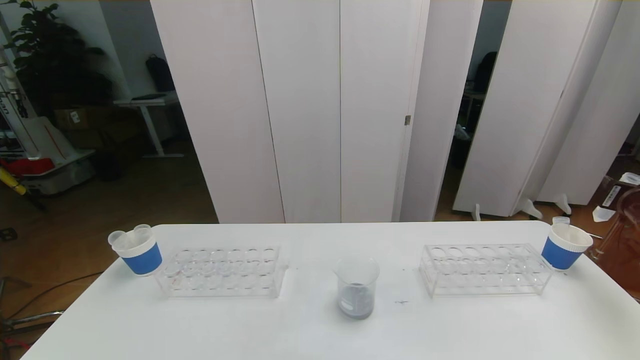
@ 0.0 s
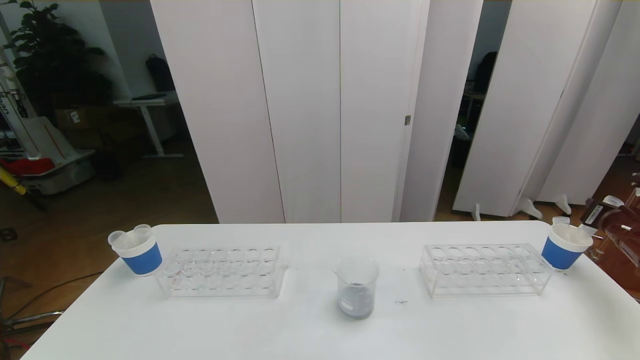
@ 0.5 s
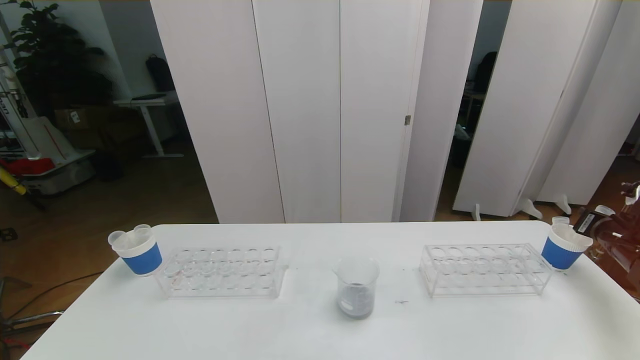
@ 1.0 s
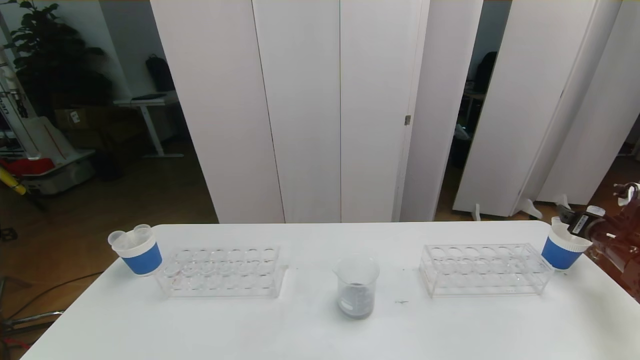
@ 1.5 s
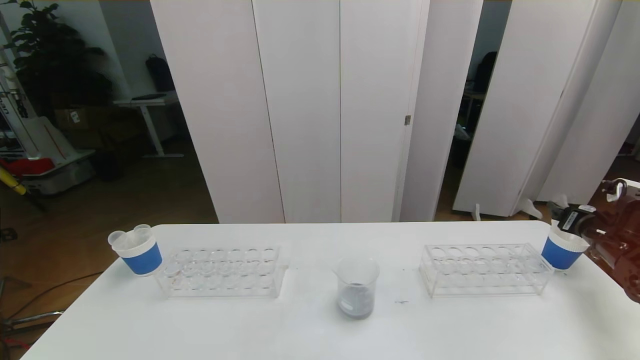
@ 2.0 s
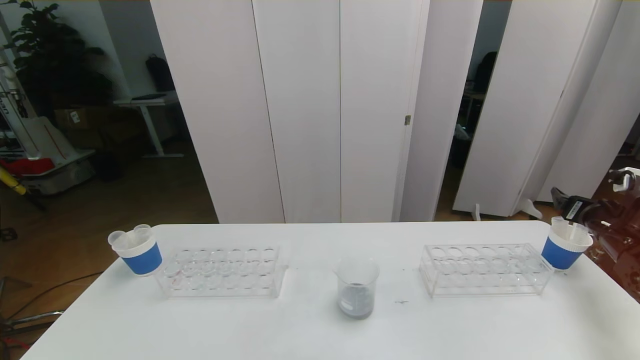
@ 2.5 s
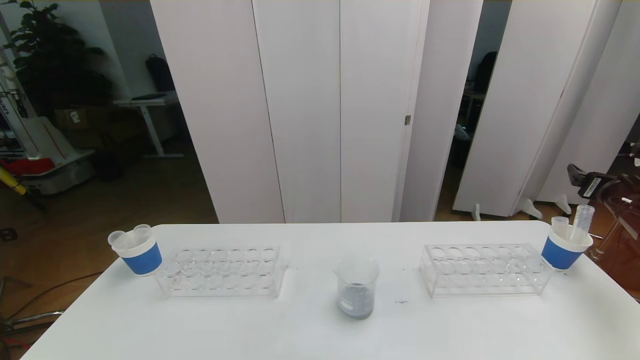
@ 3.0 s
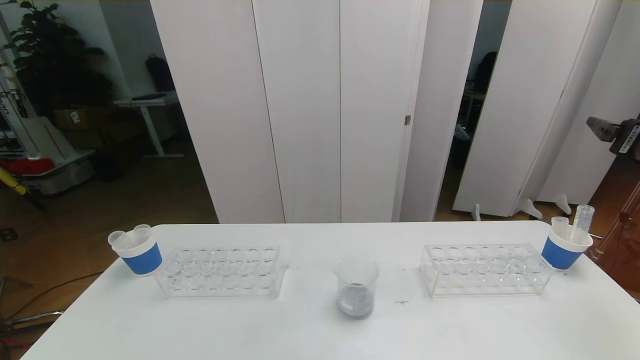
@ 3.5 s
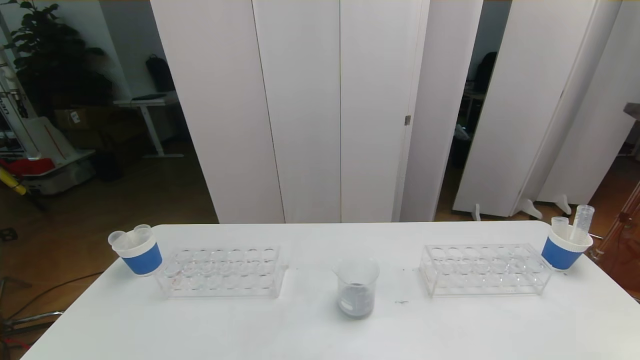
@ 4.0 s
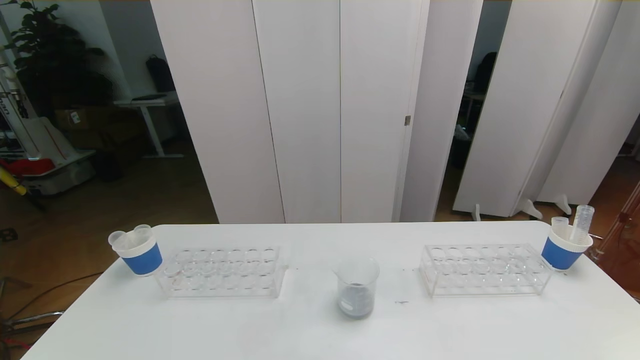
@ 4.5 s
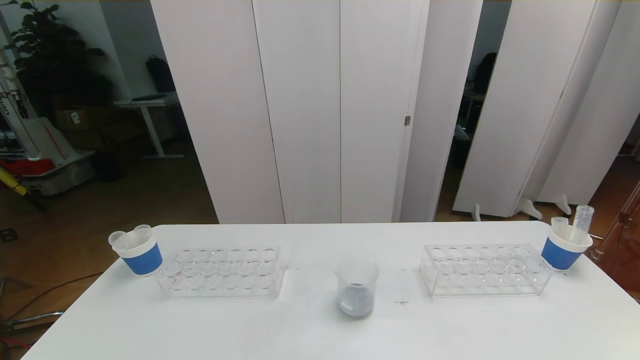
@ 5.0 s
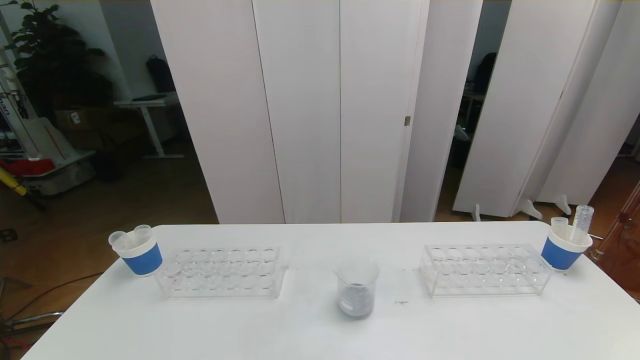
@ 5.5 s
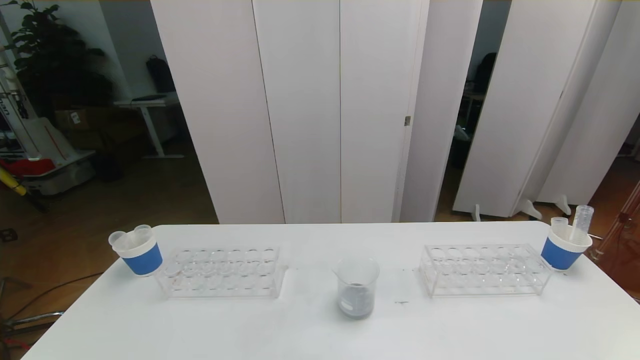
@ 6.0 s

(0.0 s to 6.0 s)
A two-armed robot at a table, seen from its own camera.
Task of the whole recording: pick up the test tube with red pigment the test tube with blue pigment and the test tube with white pigment by grippers and pour them into the beaker.
0.0 s - 2.0 s: The right gripper goes roughly 5 cm downward, and opens up.
2.0 s - 4.0 s: The right gripper goes some 30 cm upward, backward and to the left.
